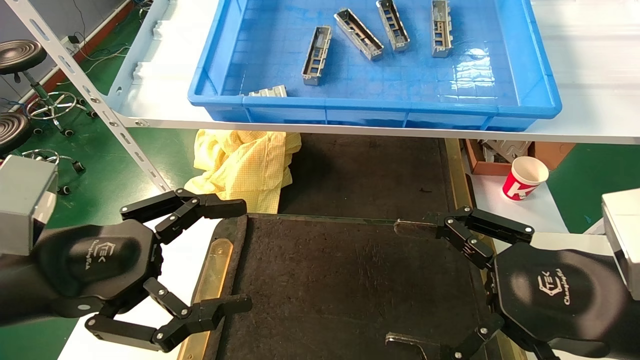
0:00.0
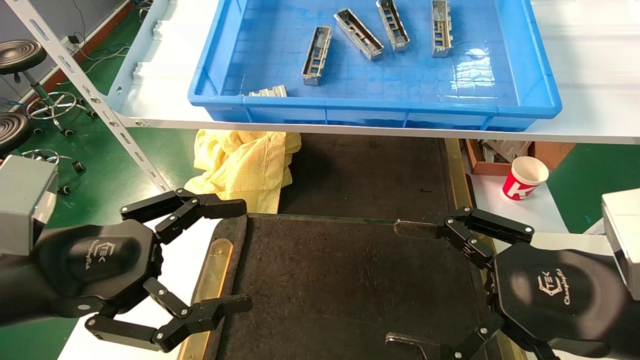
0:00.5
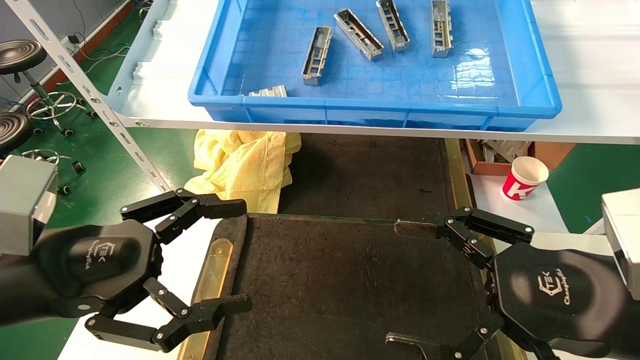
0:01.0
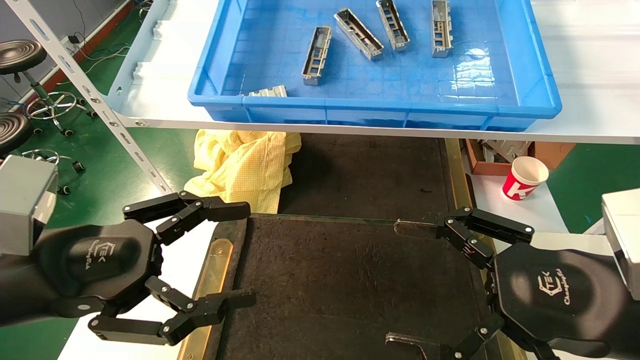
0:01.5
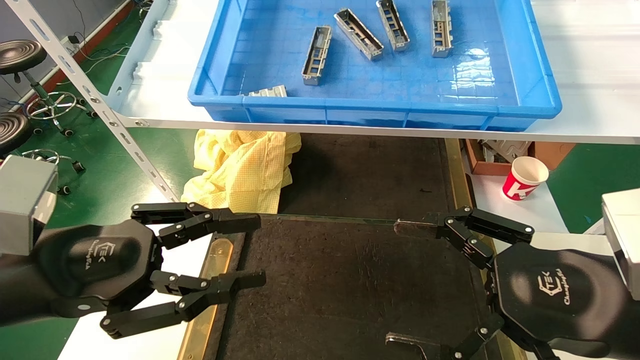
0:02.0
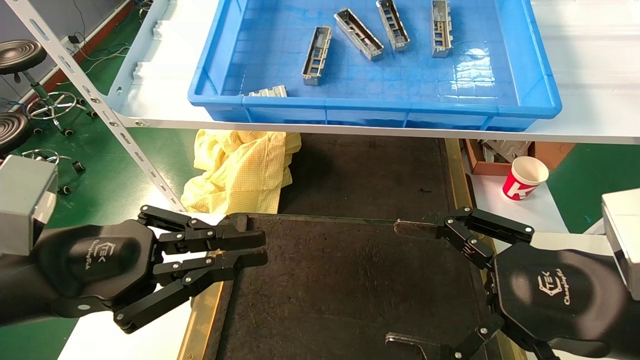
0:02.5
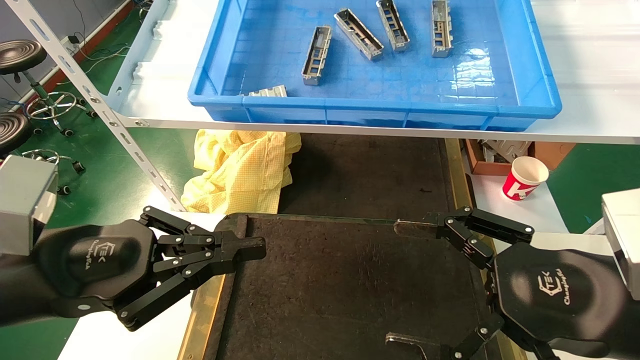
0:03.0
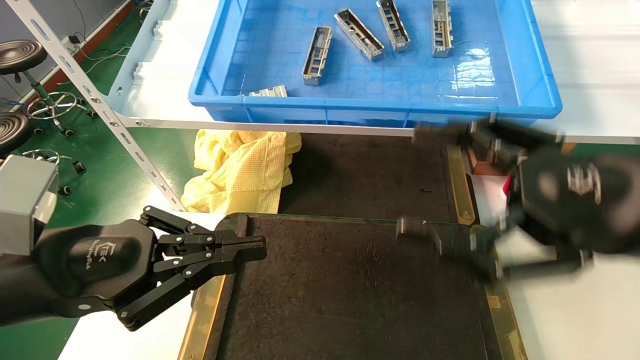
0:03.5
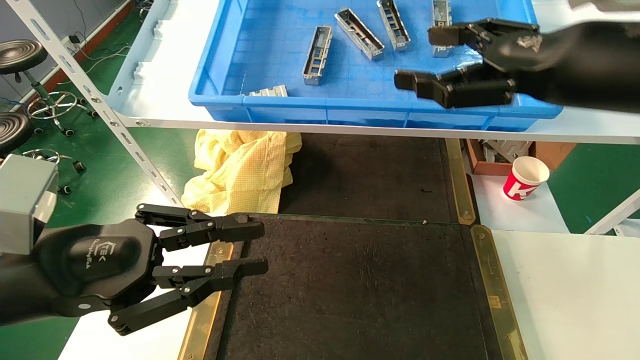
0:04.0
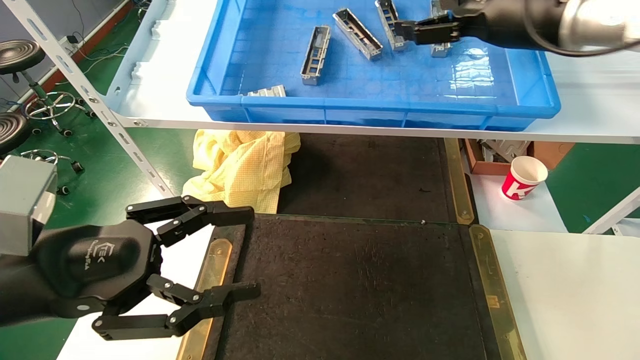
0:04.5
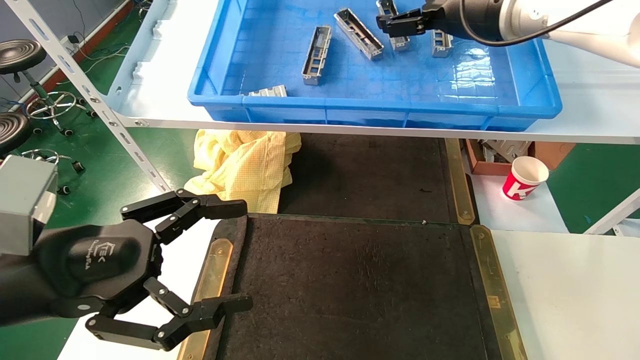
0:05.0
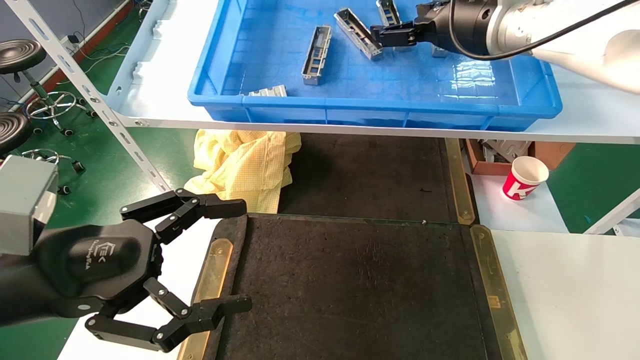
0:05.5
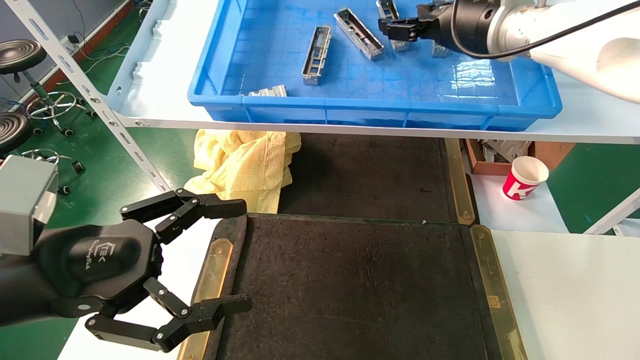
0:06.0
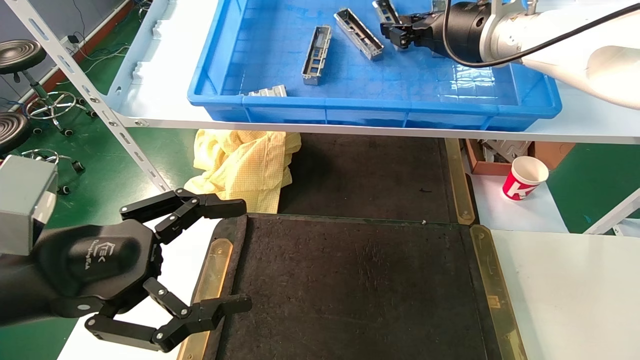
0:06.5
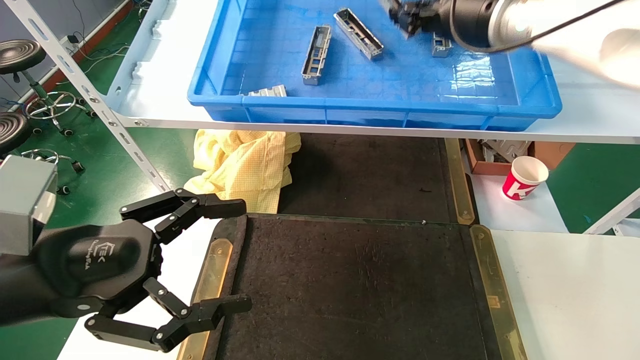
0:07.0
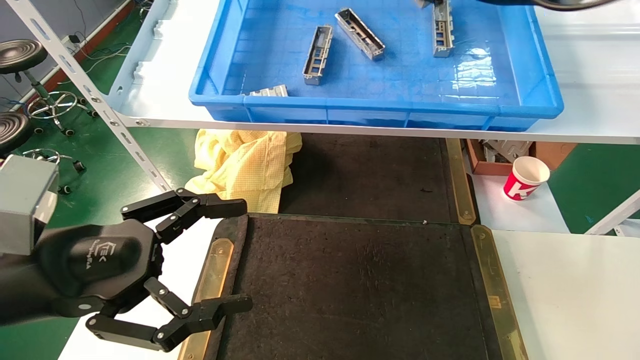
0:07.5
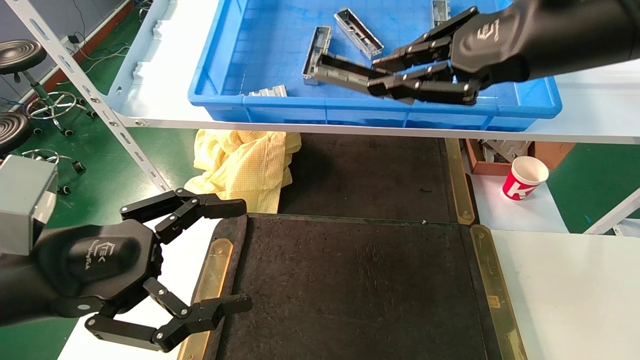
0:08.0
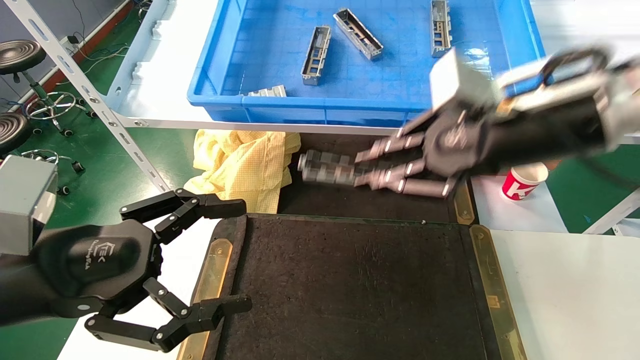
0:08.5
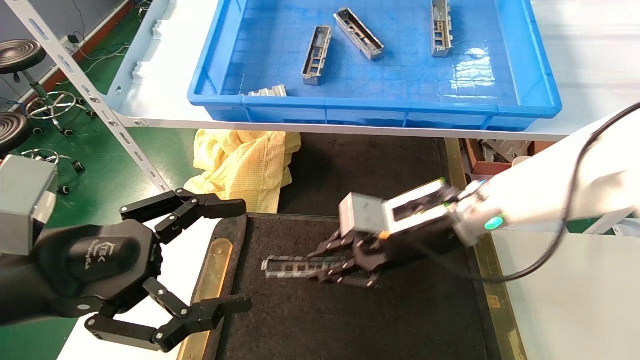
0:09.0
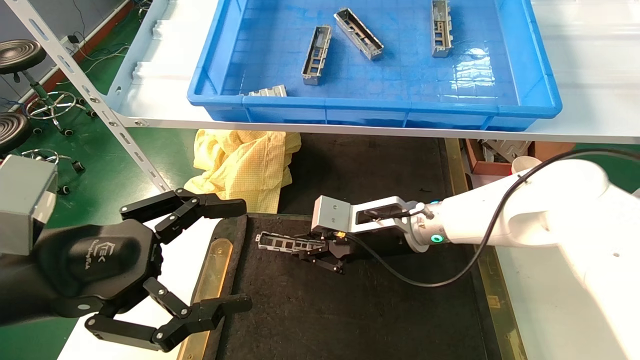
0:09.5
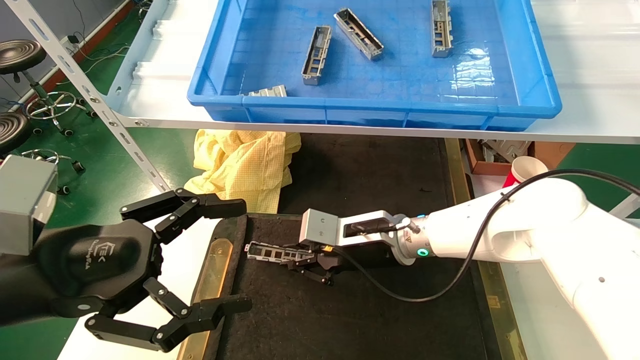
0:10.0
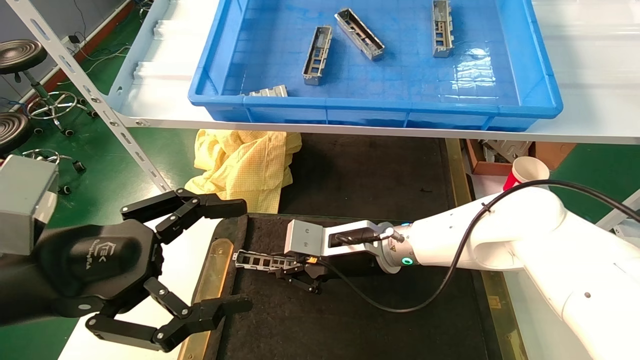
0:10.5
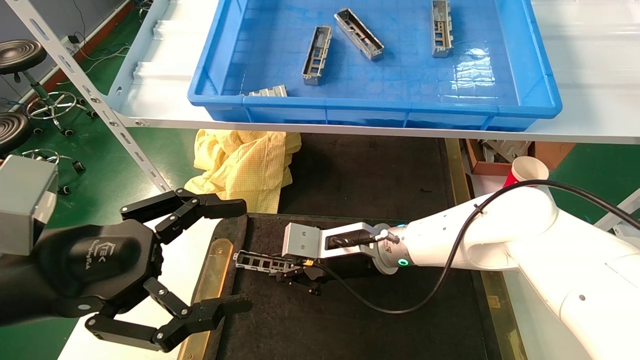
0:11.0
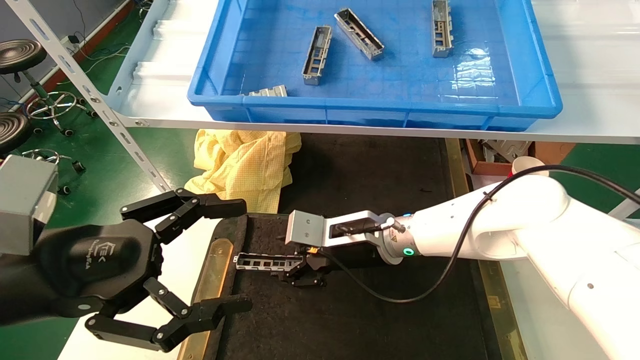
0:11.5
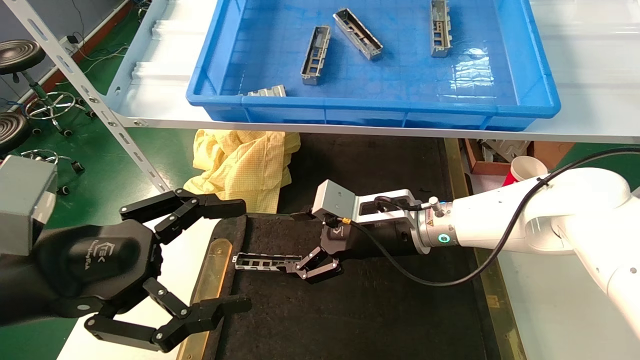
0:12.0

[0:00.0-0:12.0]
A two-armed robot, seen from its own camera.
Task of the whole recording: grasp the part and place them on the black container.
Step, 0:04.0 to 0:06.5: Pick up and lift the front USB bracket from the feeding area.
Step, 0:07.0 to 0:11.5: Place the front USB bracket into the box.
0:00.0 to 0:02.0: The left gripper closes.
0:02.0 to 0:04.0: The right gripper goes approximately 20 cm upward and forward. Meanwhile the left gripper closes.
0:04.0 to 0:06.0: The right gripper goes roughly 15 cm forward and to the left. The left gripper opens.
0:06.0 to 0:08.0: The right gripper is displaced backward by some 15 cm, and closes.
0:08.0 to 0:10.0: The right gripper travels downward, to the left and forward by approximately 35 cm.
0:10.0 to 0:12.0: The right gripper opens.

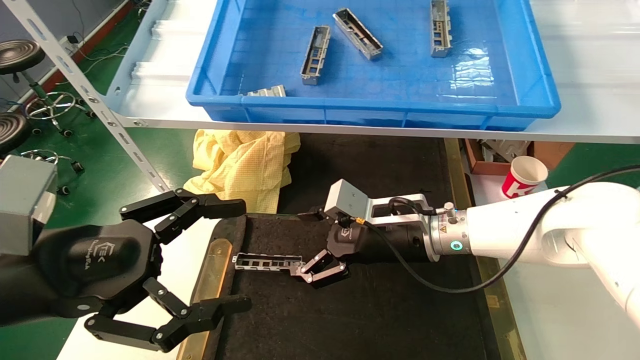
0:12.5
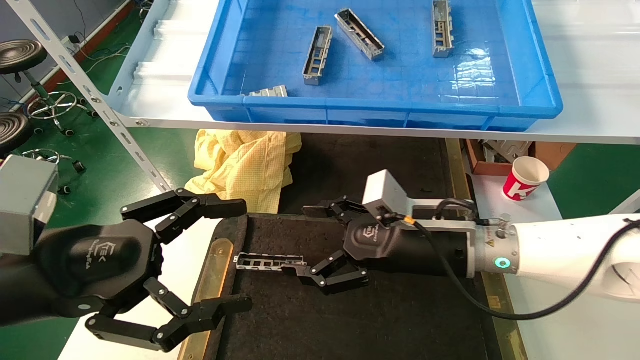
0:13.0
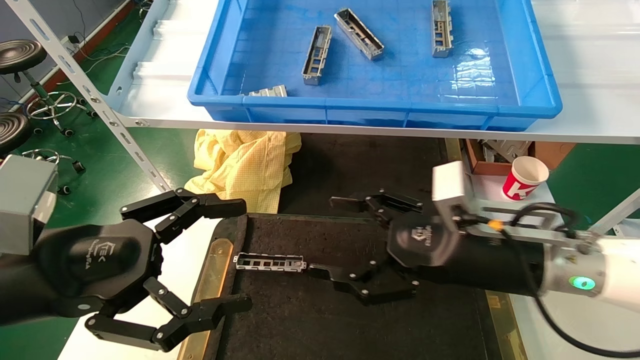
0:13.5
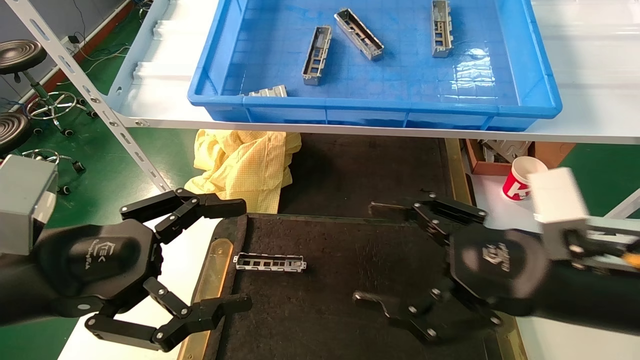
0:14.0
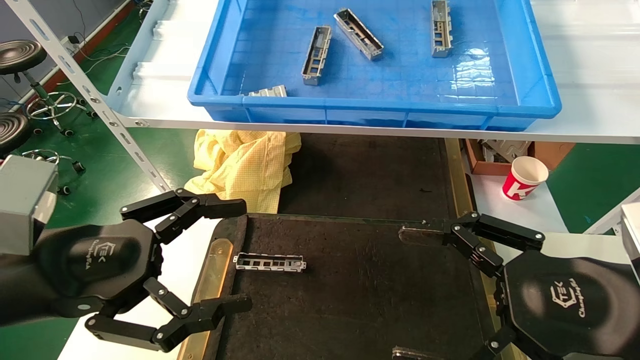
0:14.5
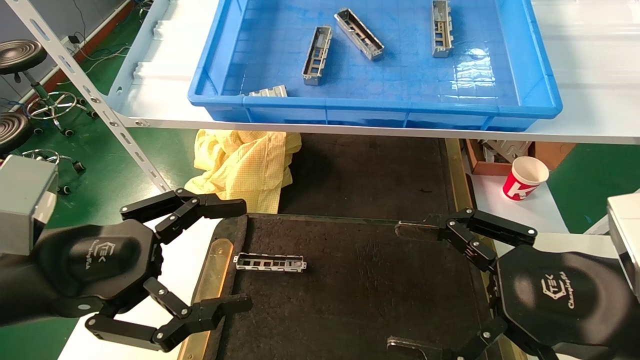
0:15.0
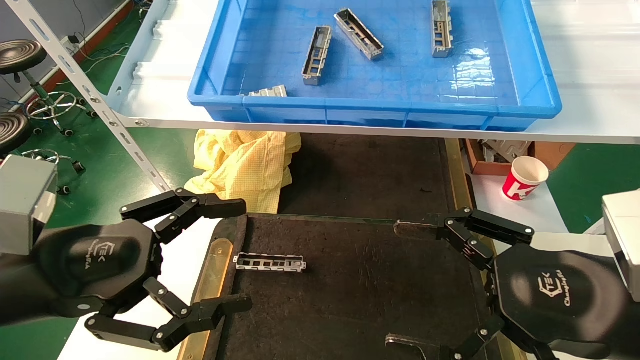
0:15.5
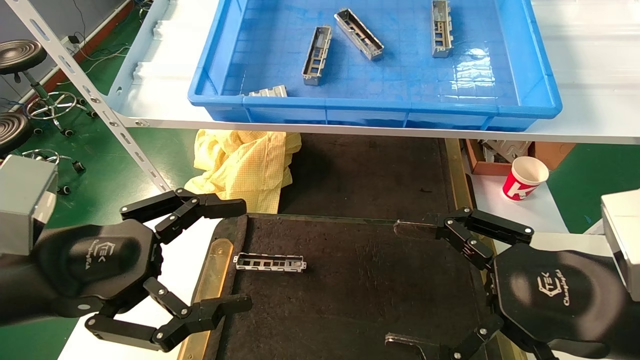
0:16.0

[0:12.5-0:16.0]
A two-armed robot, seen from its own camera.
Task of the whole recording: grasp the part and place them on the black container.
0:12.5 to 0:14.5: The right gripper is displaced backward and to the right by roughly 25 cm.
0:14.5 to 0:16.0: Both grippers stay about where they are.

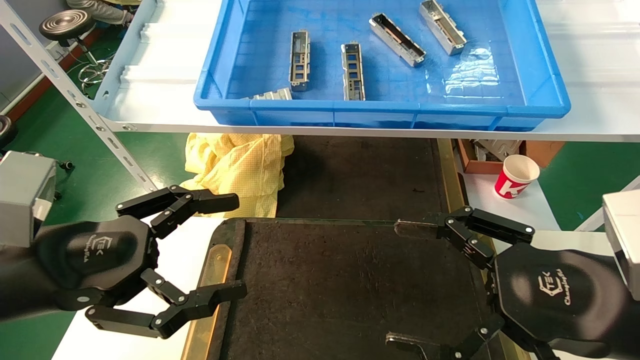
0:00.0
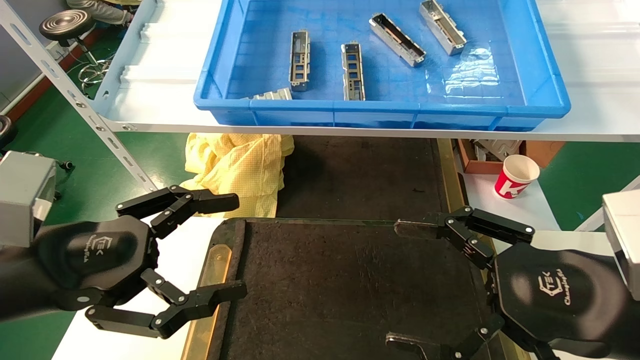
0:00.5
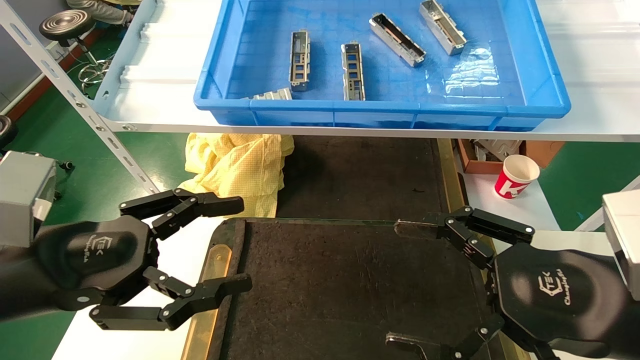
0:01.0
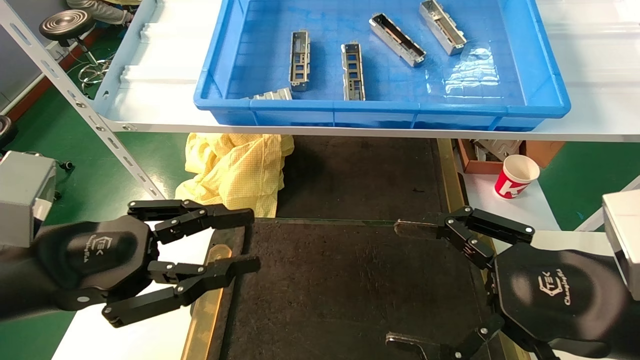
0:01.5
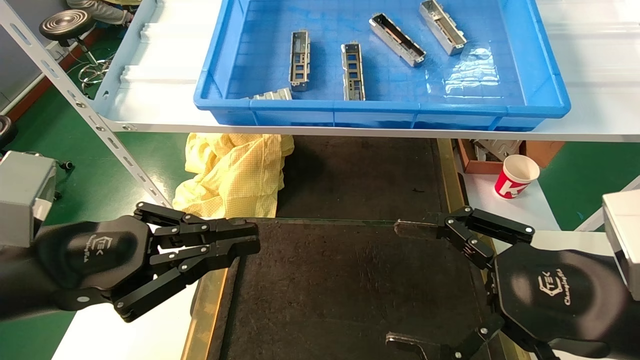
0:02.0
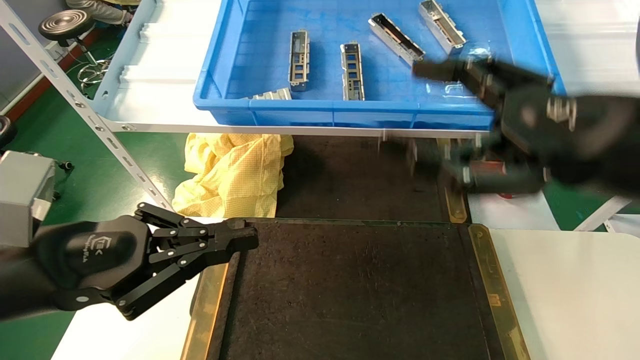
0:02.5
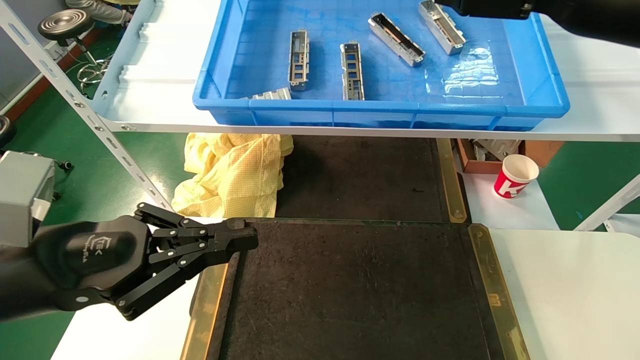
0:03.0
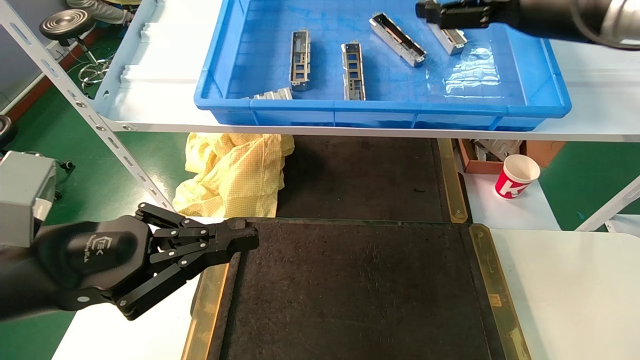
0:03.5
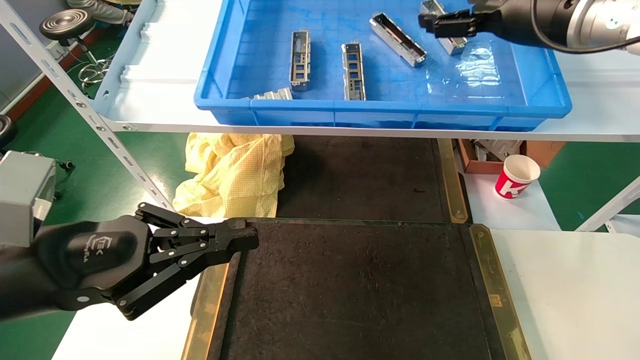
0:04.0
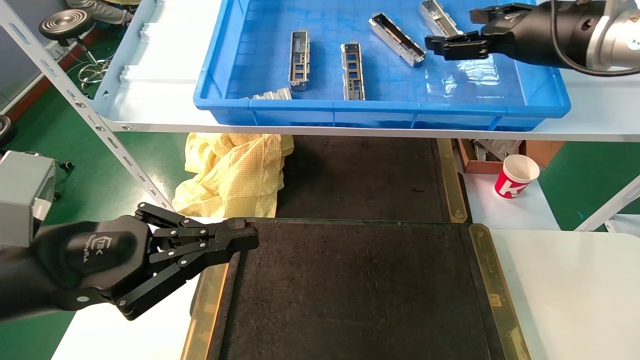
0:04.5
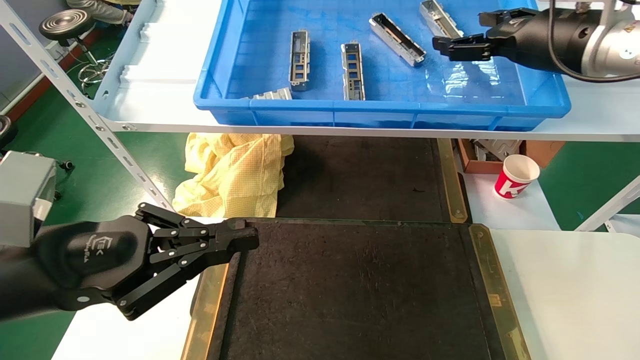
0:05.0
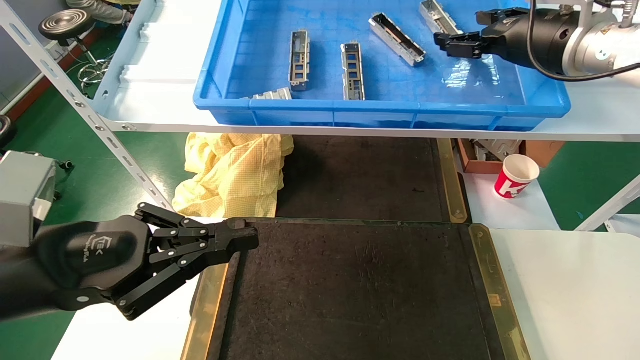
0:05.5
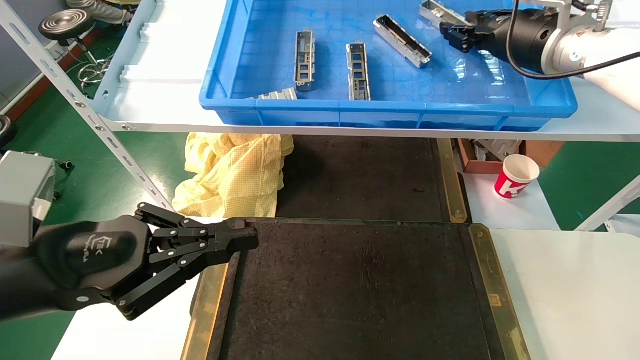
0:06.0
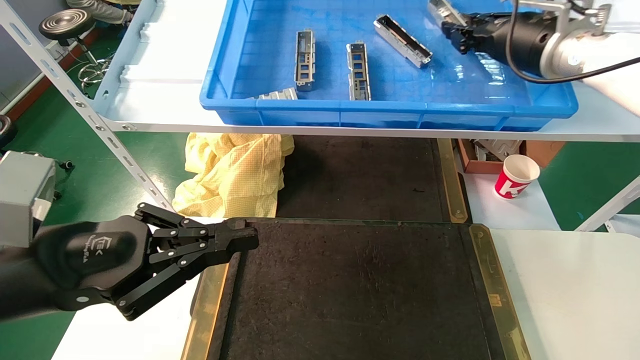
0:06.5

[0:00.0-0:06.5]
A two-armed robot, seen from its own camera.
Task of the whole recording: grasp the part and place them on the black container.
0:00.0 to 0:02.0: The left gripper closes up.
0:02.0 to 0:04.5: The right gripper shifts approximately 30 cm forward and upward.
0:04.5 to 0:06.5: The right gripper closes.
